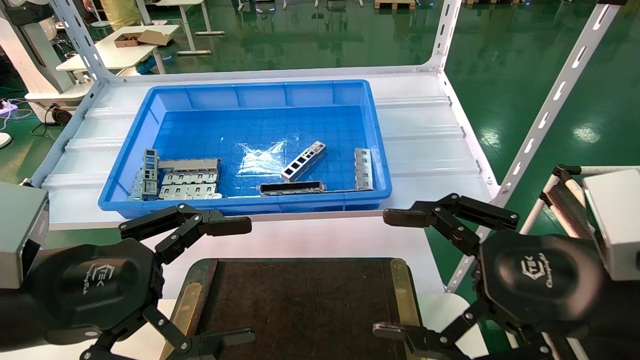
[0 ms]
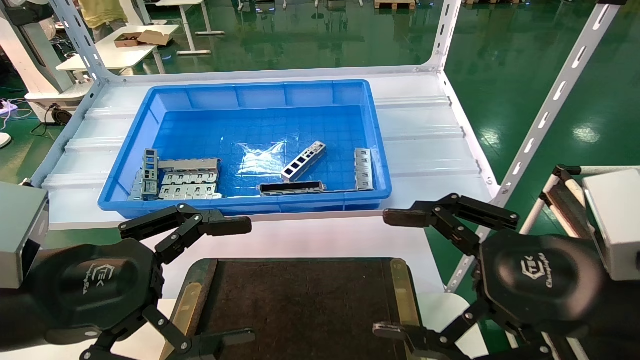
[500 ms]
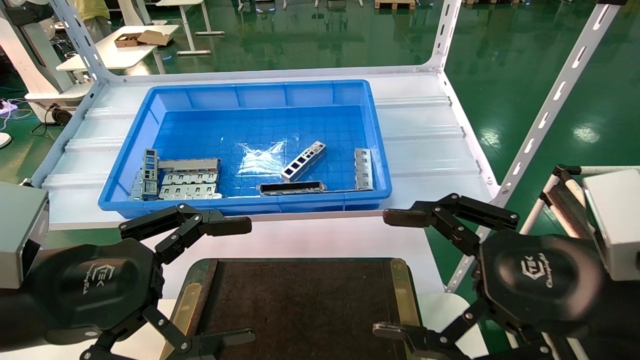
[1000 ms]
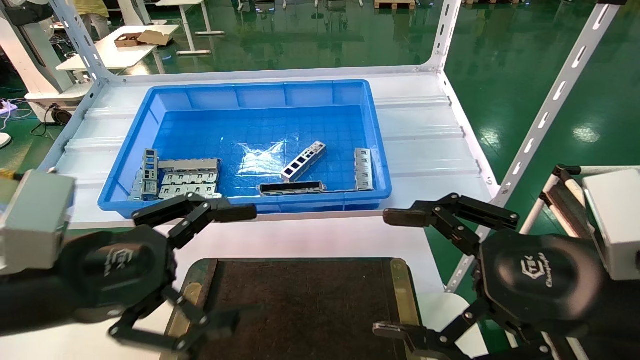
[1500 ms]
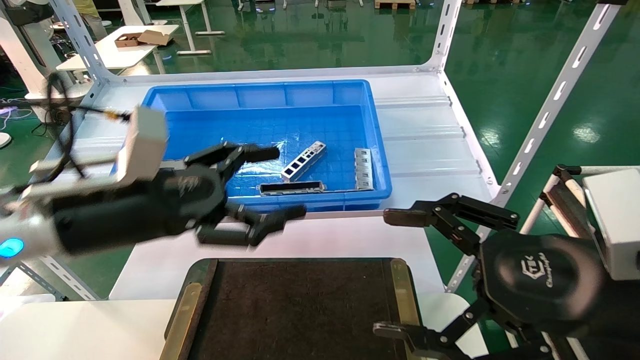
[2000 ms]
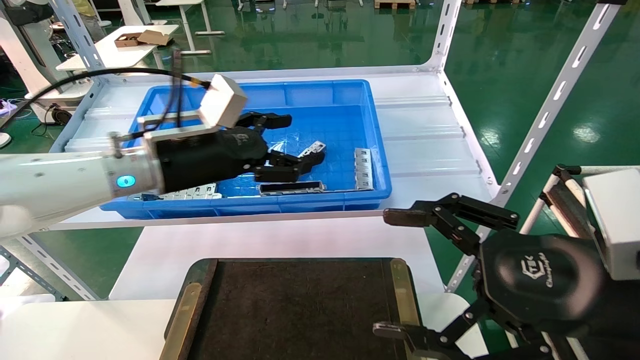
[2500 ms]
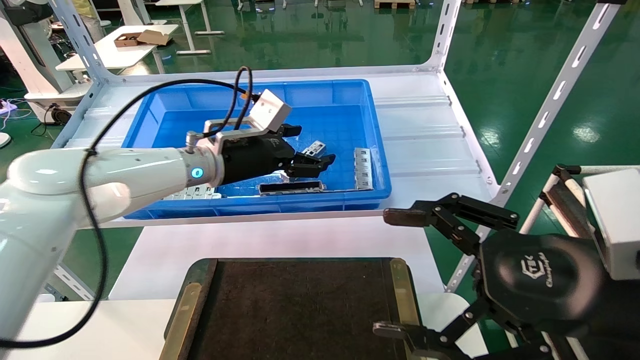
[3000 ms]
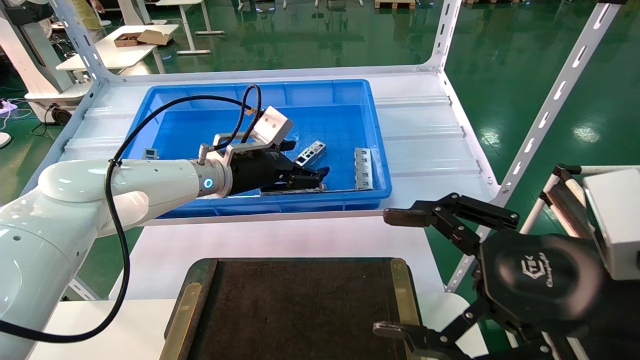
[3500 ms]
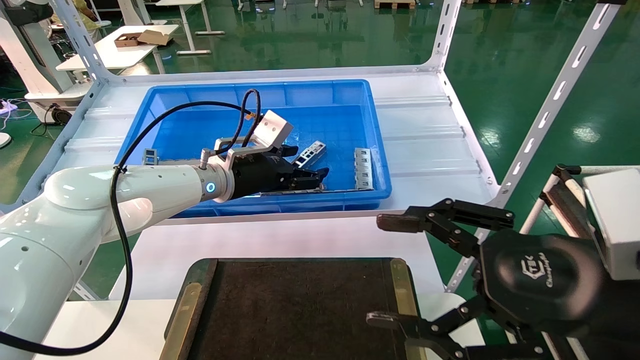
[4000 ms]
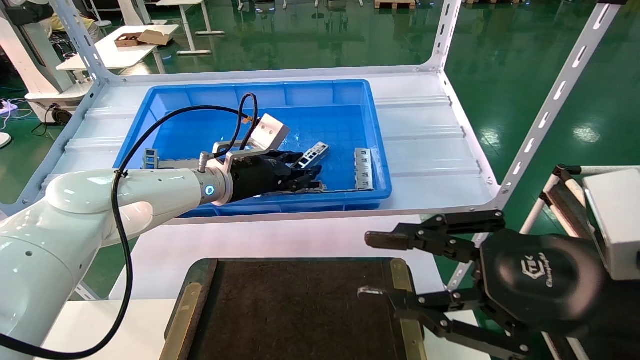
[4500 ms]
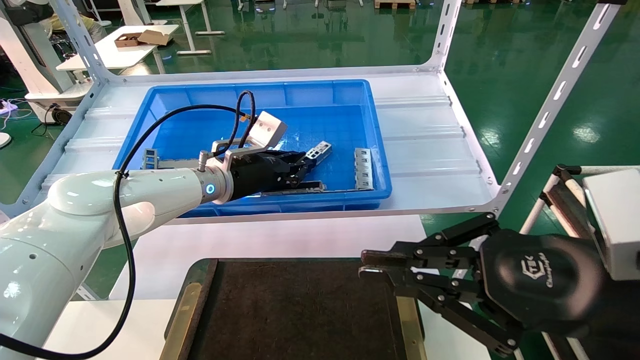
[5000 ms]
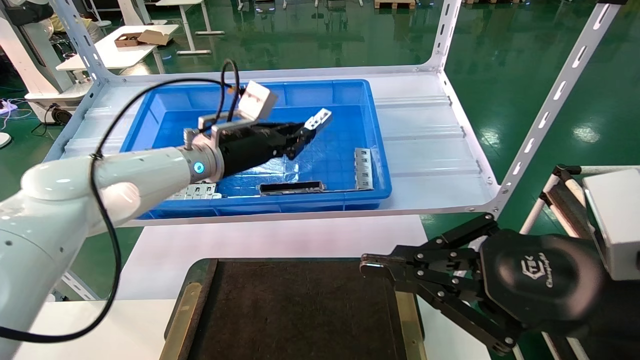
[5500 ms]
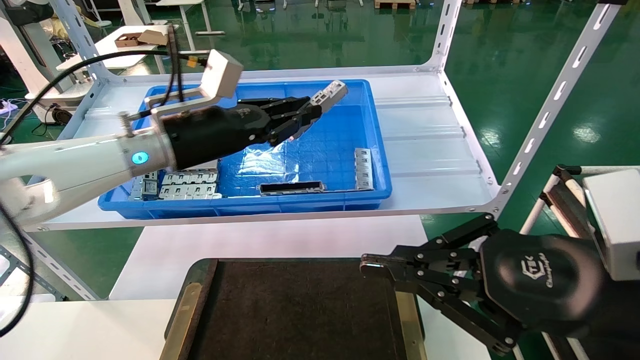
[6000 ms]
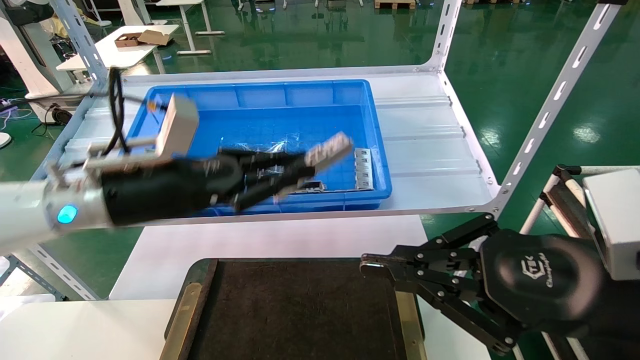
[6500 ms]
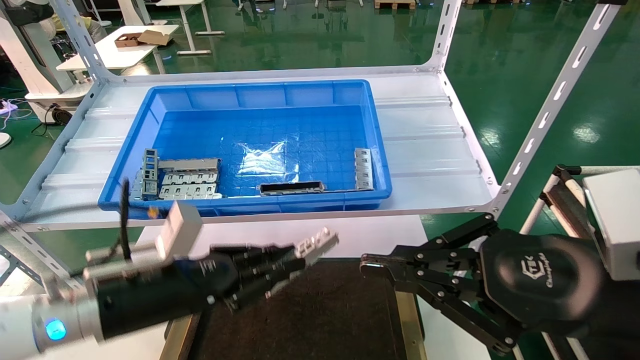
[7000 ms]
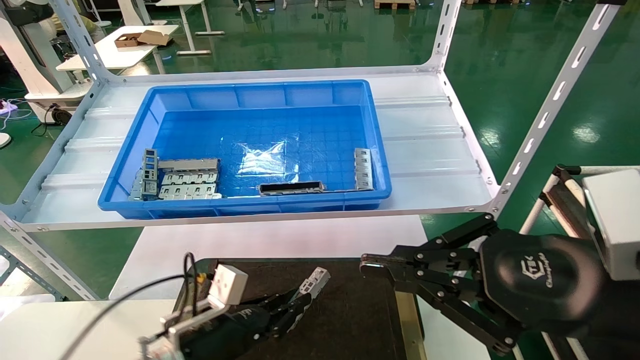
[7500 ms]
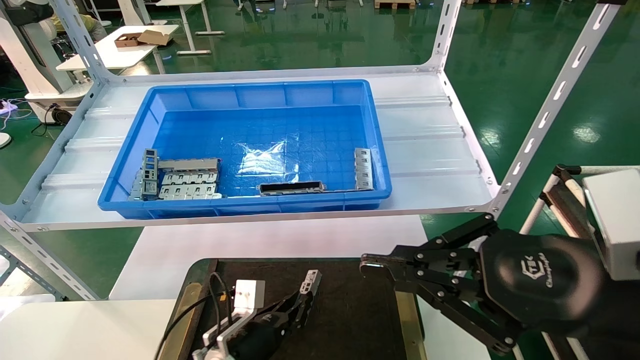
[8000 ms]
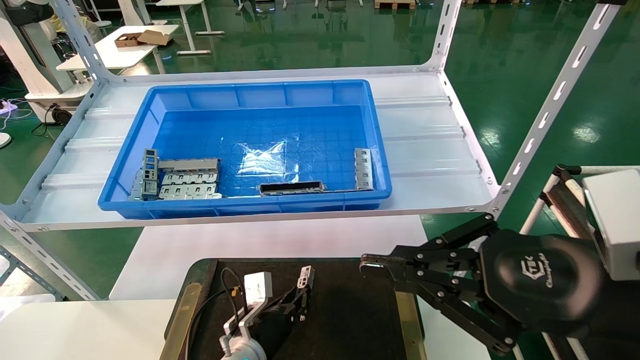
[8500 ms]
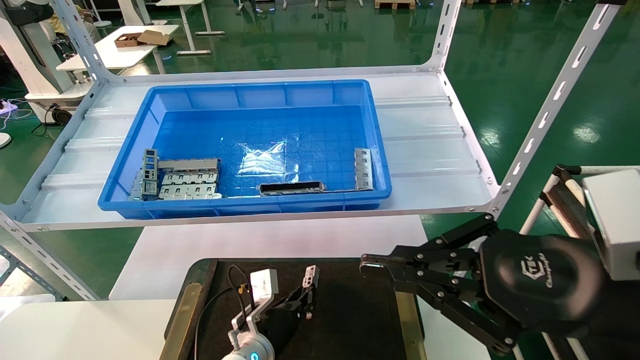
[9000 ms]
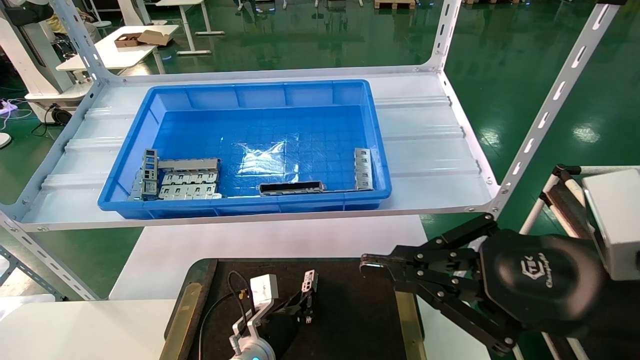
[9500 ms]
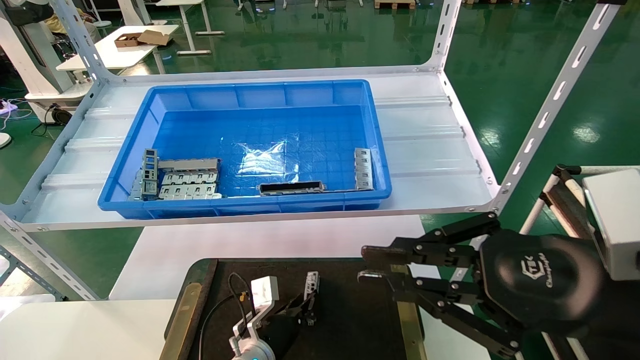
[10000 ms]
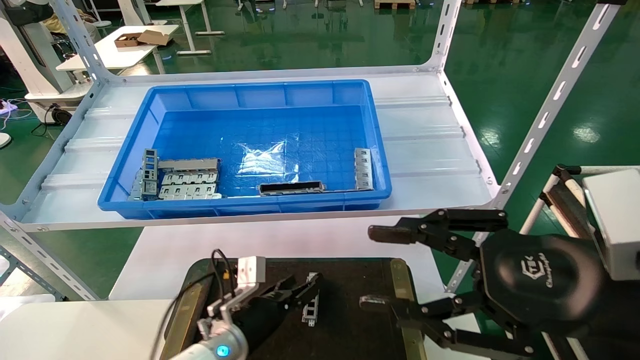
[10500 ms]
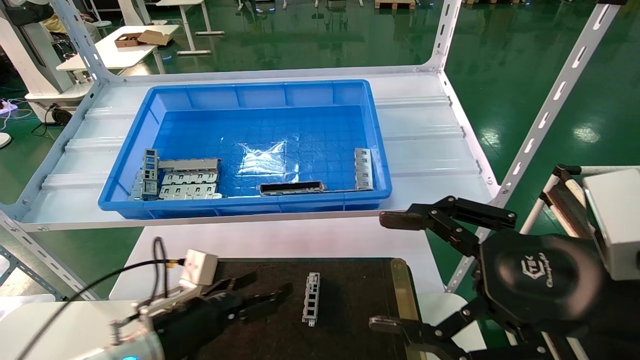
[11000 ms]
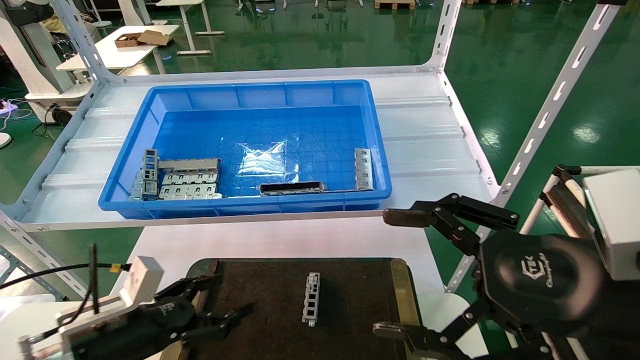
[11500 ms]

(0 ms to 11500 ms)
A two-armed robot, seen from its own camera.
Task of the whole recording: Grasp the part with one hand and place it on the black container.
Step, 2000 ms - 5000 ms: Pick up the front USB bracket from the feeding area.
Step, 5500 ms - 10000 ms: Place the front USB bracket into the box.
0 ms - 2000 ms: The left gripper goes approximately 10 cm forward.
2000 ms - 4000 ms: The left gripper is displaced forward and to the right by approximately 20 cm.
4000 ms - 6000 ms: The right gripper closes its fingers. Meanwhile the left gripper travels backward and upward by about 10 cm, and closes up.
6000 ms - 7500 ms: The left gripper heads downward, covering approximately 30 cm.
7500 ms - 9500 ms: The left gripper travels downward, to the right and forward by approximately 15 cm.
9500 ms - 11500 ms: The right gripper opens up; the left gripper goes approximately 25 cm to the left, upward and backward, and opens up.
